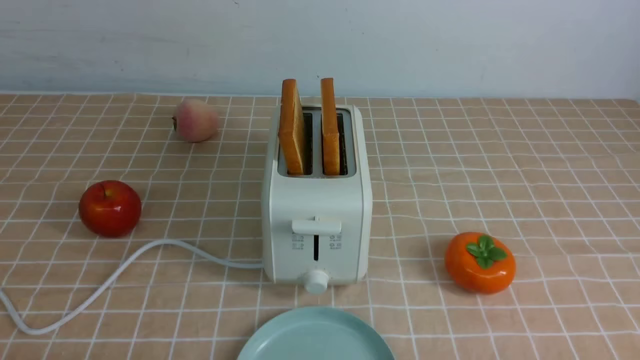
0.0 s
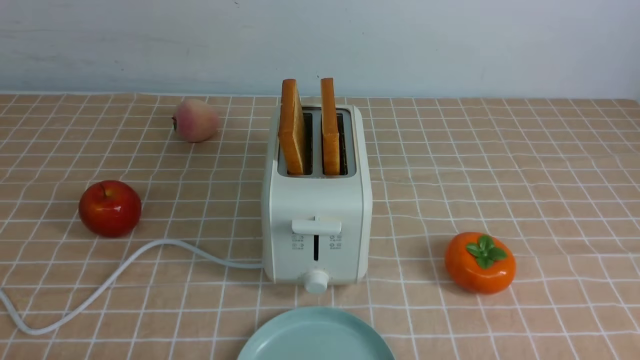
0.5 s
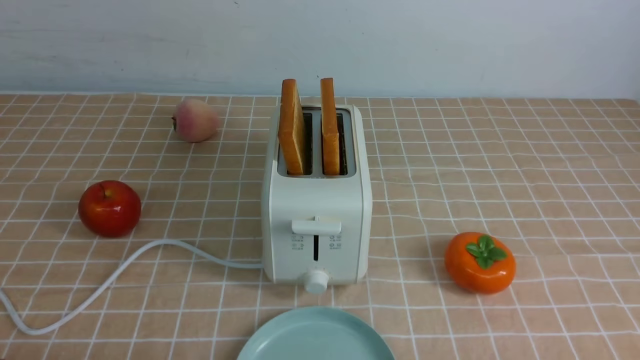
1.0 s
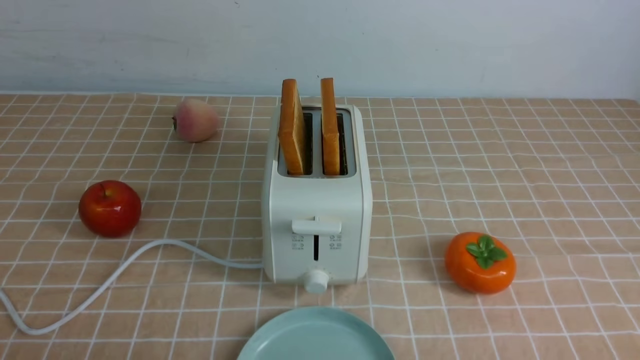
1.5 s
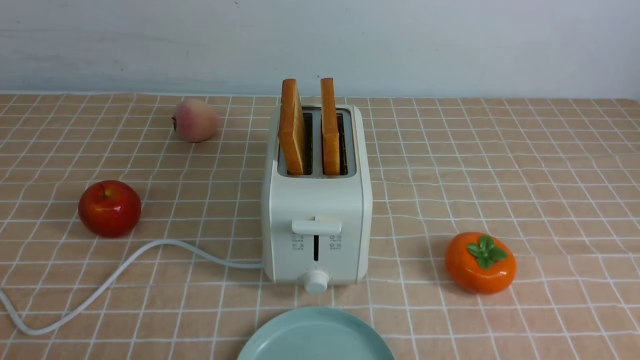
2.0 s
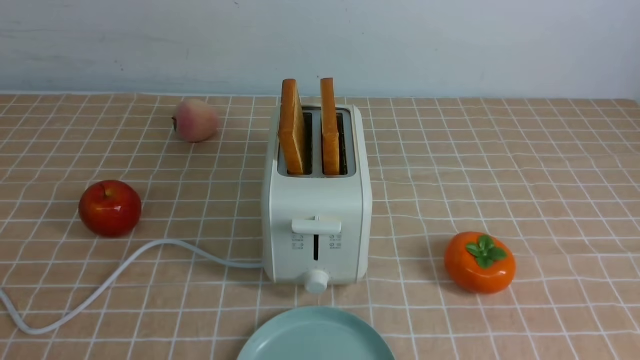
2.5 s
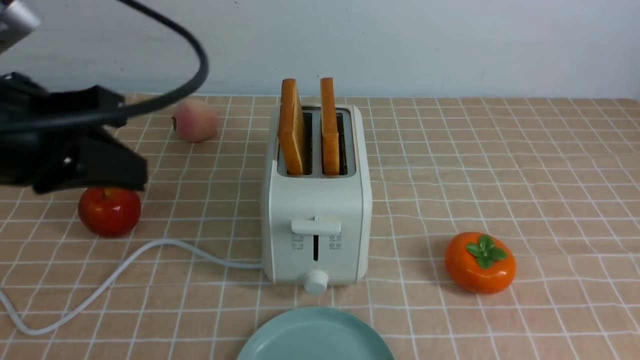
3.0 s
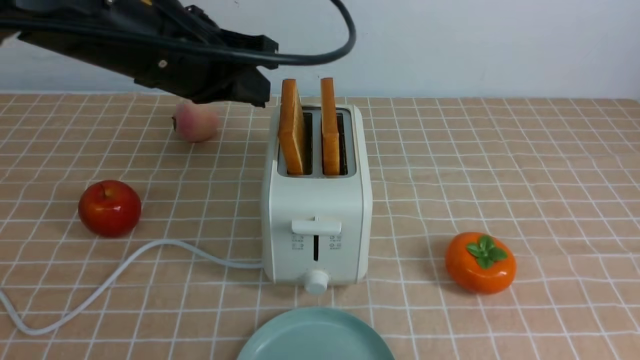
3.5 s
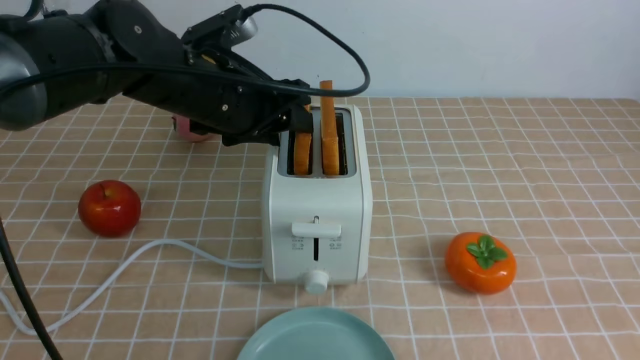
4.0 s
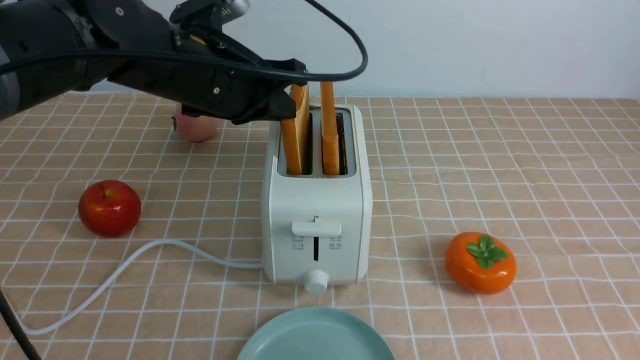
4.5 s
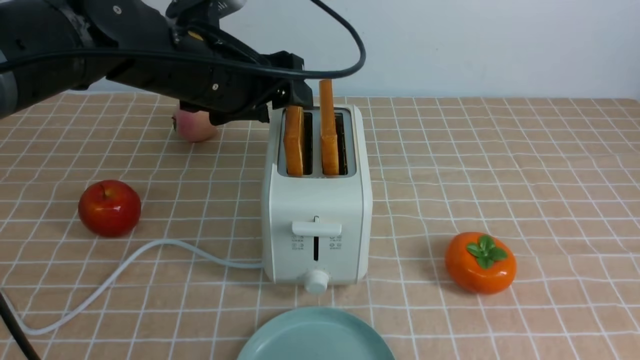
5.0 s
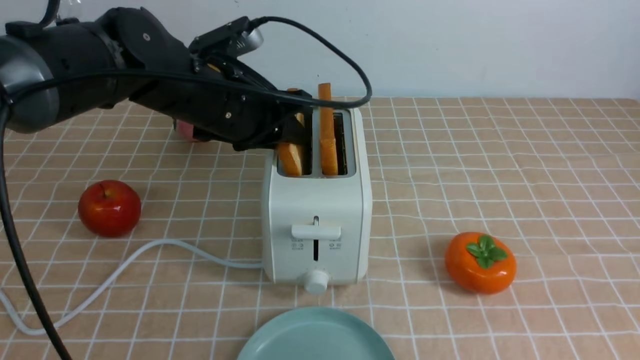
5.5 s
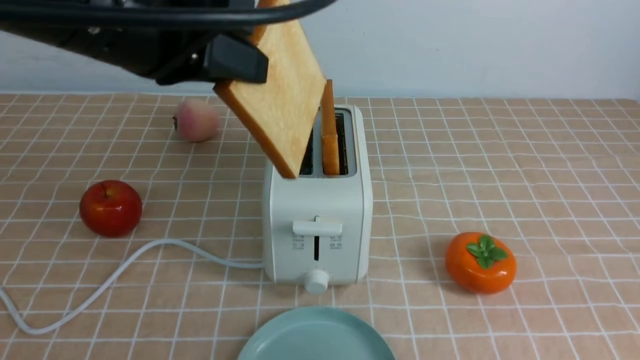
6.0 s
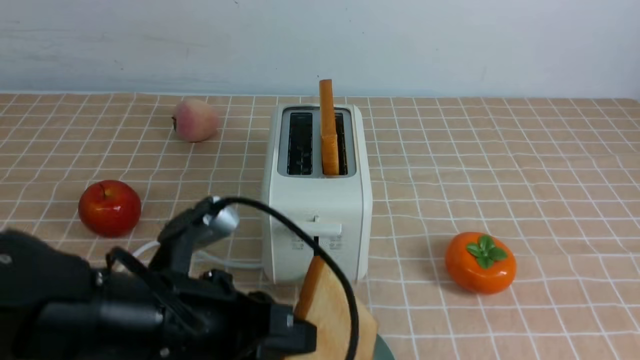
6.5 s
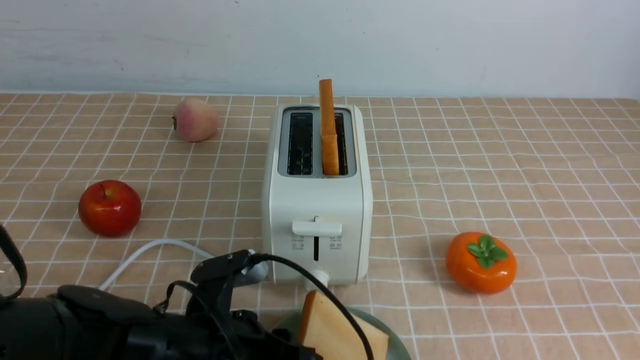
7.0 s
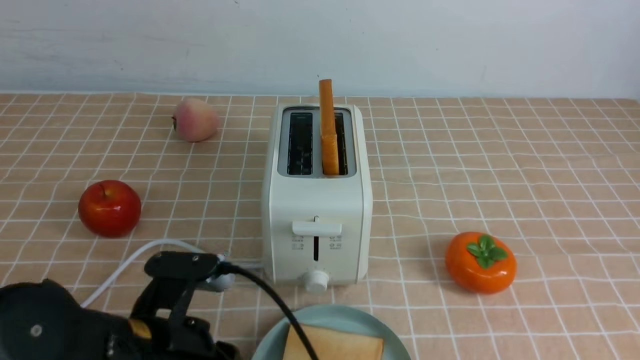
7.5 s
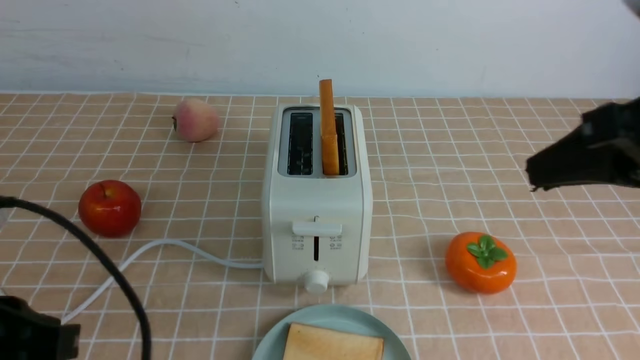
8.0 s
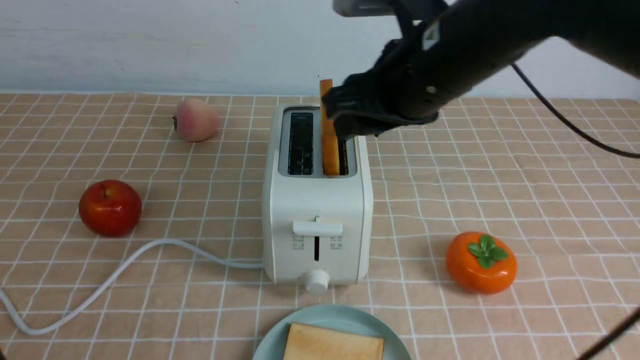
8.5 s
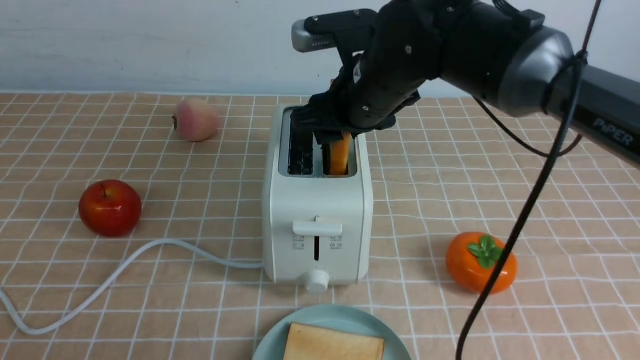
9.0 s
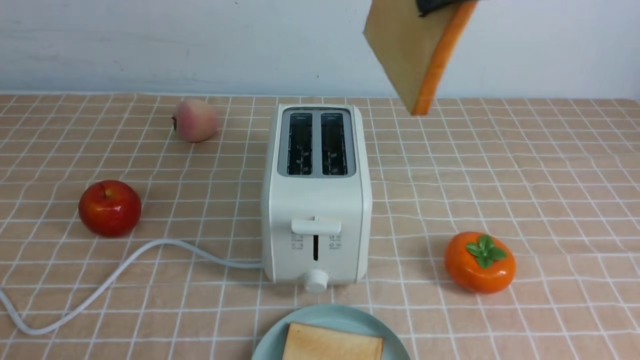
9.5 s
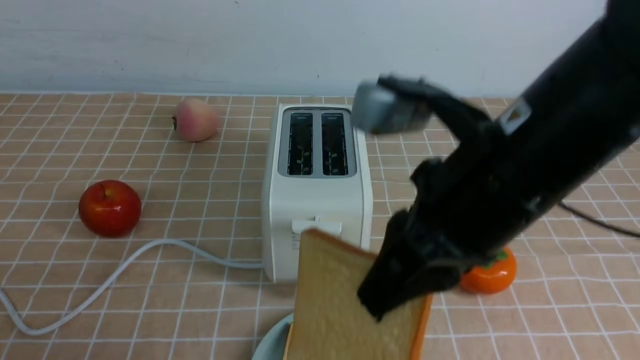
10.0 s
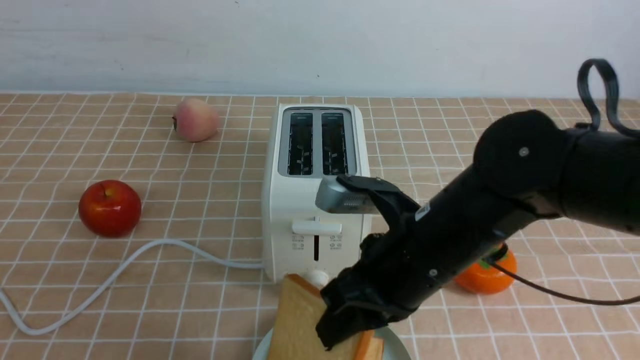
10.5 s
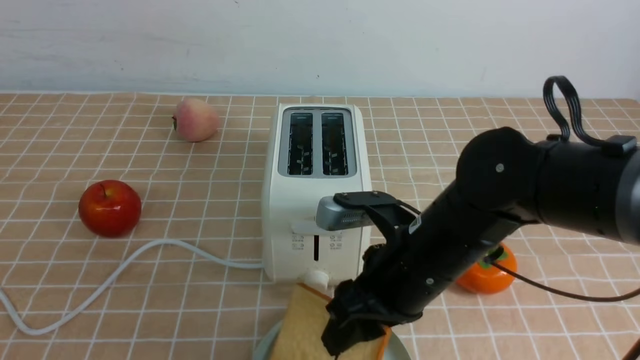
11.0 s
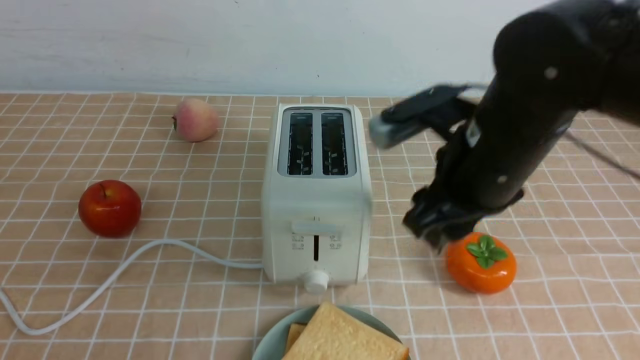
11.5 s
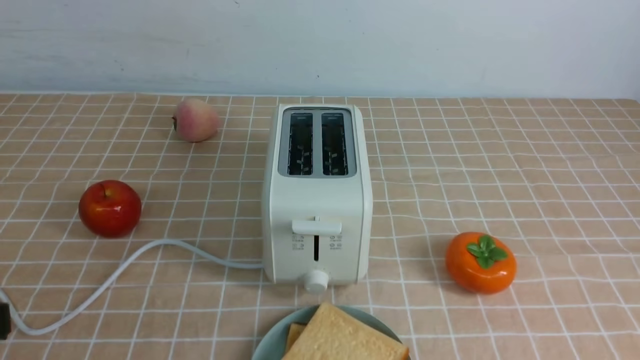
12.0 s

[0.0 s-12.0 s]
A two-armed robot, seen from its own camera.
Task of the whole recording: take toasted bread from bread machine on light coffee tablecloth place on plate.
Step, 0.0 to 5.5 s: use the left arm to take out a slice of bread.
Step, 6.0 to 7.0 s: use the left arm to put a slice of bread into the empty plate.
Step, 7.5 to 9.0 s: use the right arm to take out a slice of bread.
Step, 9.5 to 11.0 s: use the right arm to put a slice of bread into the plate.
2.0 to 4.0 s: The right gripper moves upward, roughly 15 cm, and closes its fingers; the left gripper is displaced forward and to the right by approximately 35 cm, and closes, then opens again.
4.0 to 6.0 s: The left gripper goes roughly 10 cm backward and upward, and closes up.
6.0 to 8.0 s: The left gripper moves backward, downward and to the left, roughly 20 cm. The right gripper is displaced forward and upward by roughly 10 cm.
8.0 to 10.0 s: The left gripper shifts approximately 10 cm backward. Meanwhile the right gripper shifts approximately 15 cm to the left, and opens and closes again.
10.0 to 12.0 s: The right gripper goes roughly 20 cm to the right, backward and upward, and opens, then closes again.

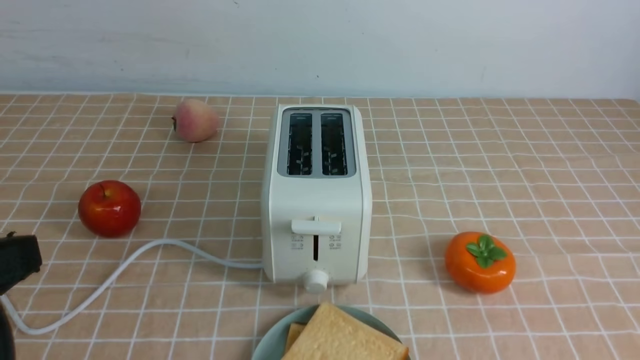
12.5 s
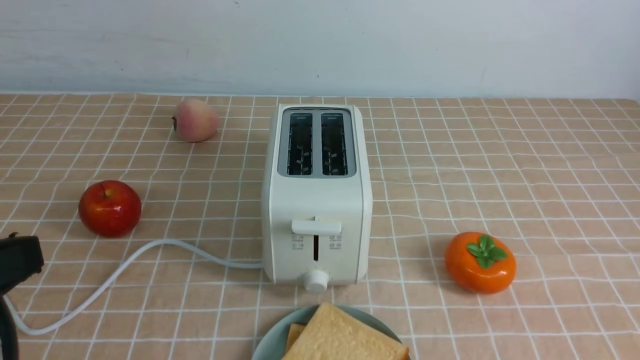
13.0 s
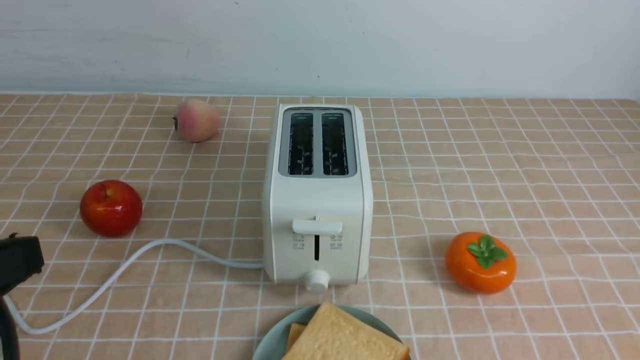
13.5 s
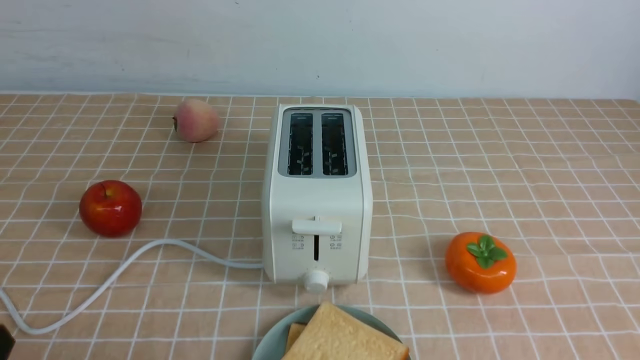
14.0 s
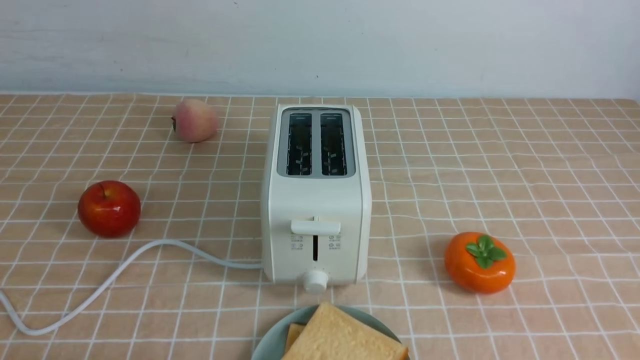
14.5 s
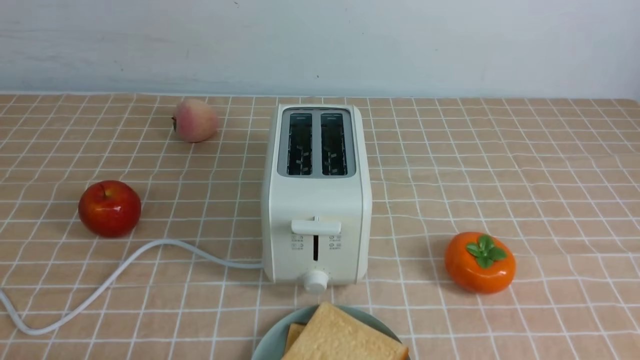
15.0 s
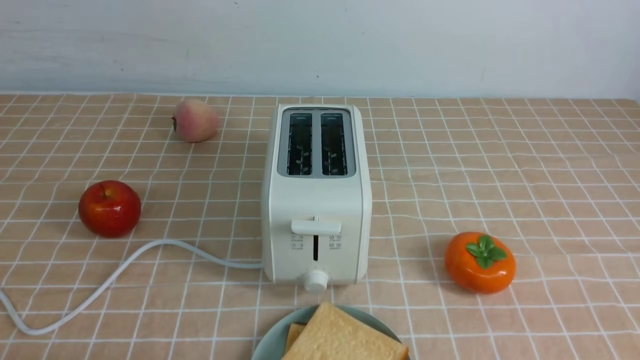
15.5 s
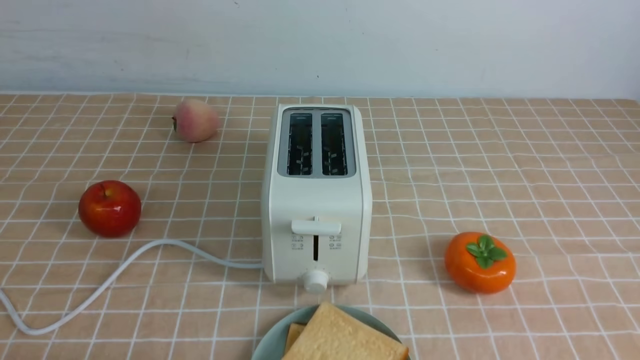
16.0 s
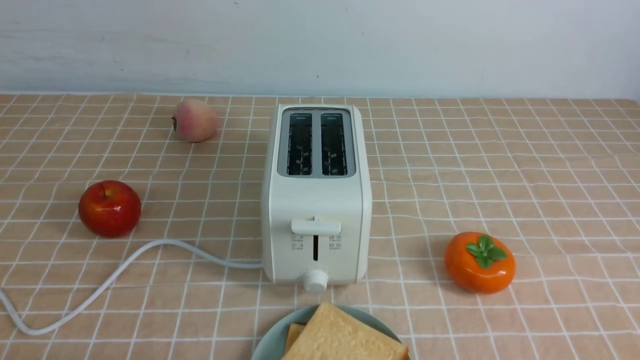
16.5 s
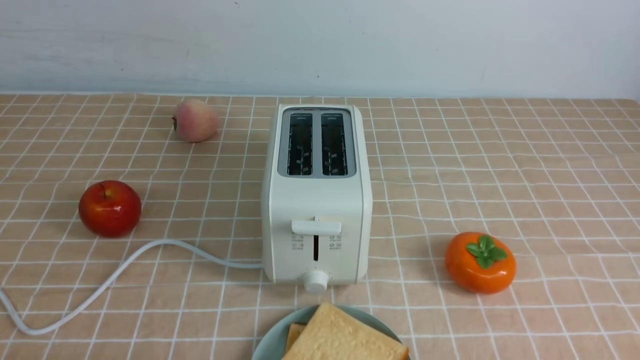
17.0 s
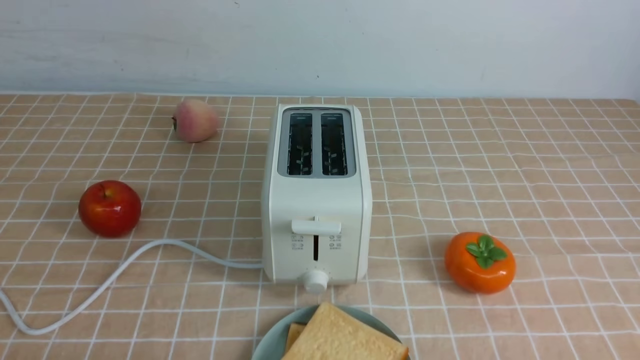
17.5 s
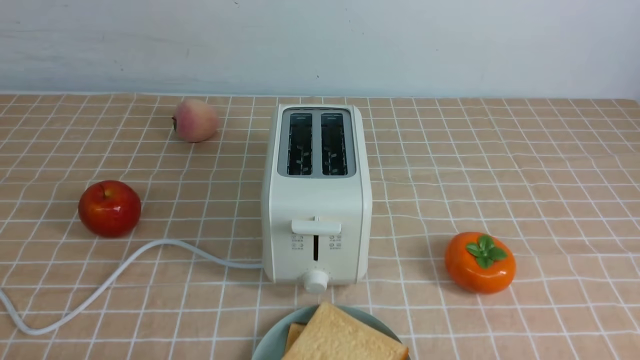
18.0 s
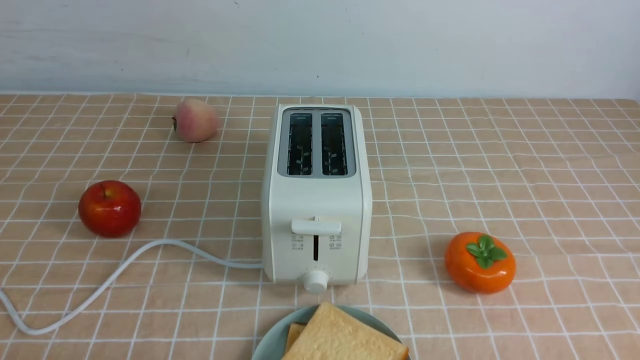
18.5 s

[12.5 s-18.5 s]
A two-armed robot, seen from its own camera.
Task of the whole recording: take toasted bread from bread machine on light coffee tablecloth place on plate.
12.5 to 14.5 s: The left gripper shifts some 20 cm downward.

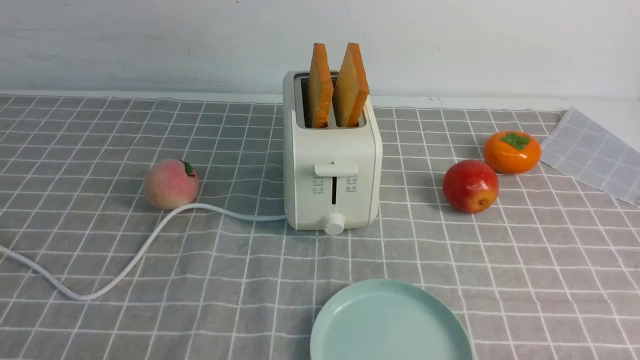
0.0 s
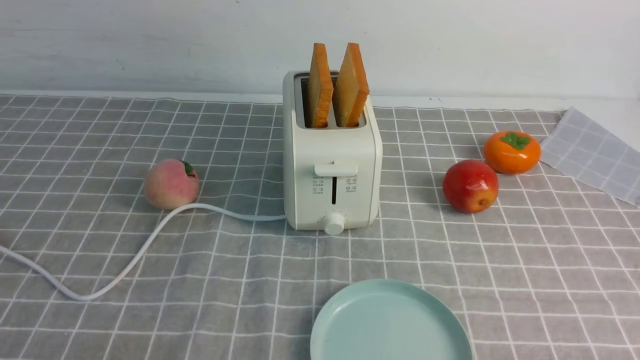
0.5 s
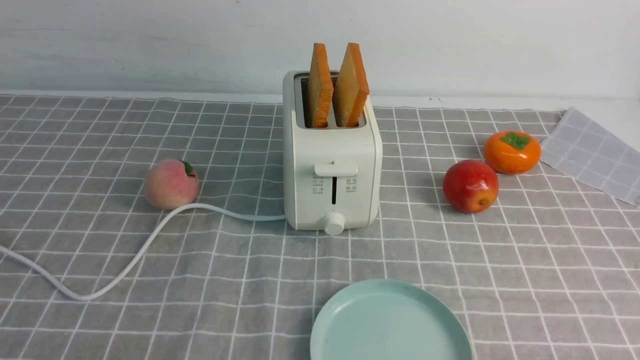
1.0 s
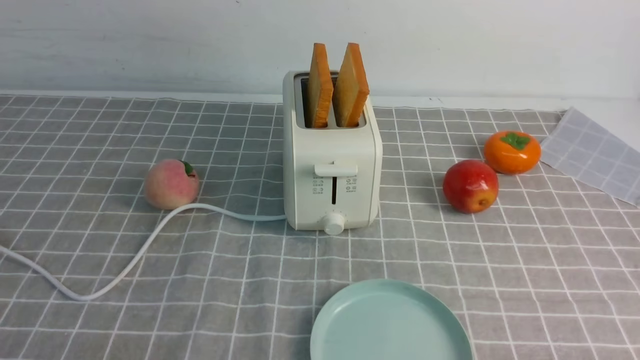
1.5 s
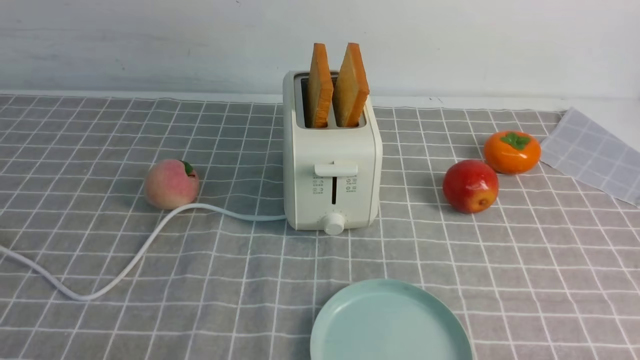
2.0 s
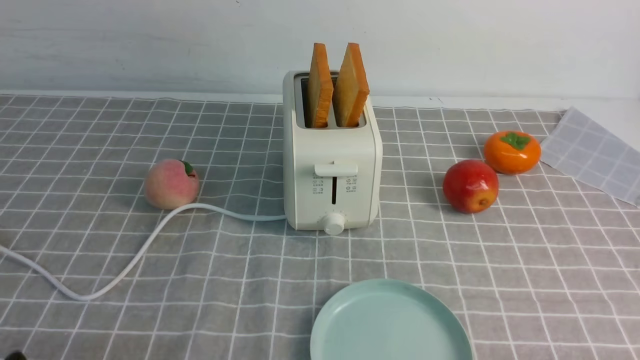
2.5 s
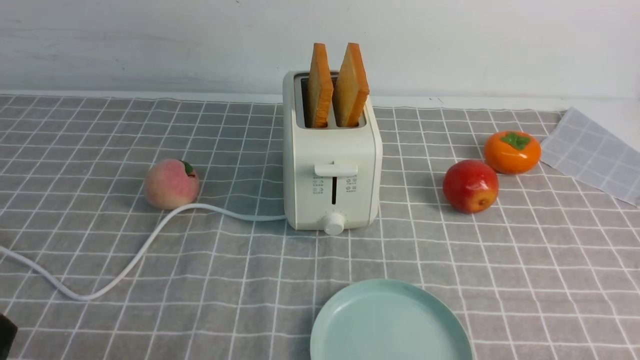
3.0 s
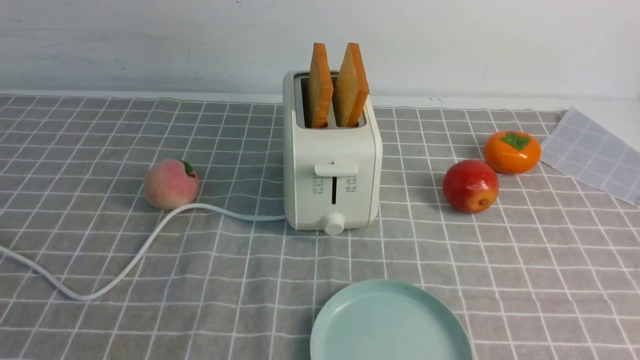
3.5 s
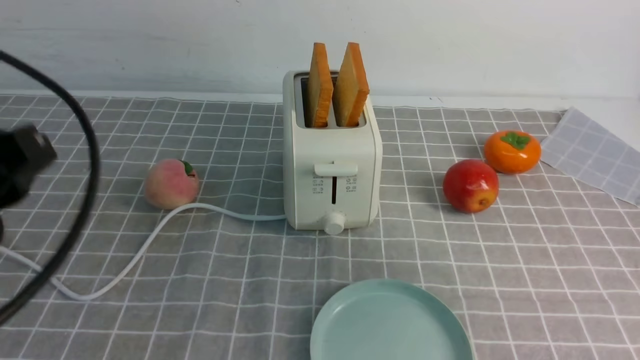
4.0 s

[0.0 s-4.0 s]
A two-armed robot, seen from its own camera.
Task of the whole recording: take toasted bread from bread machine on grey coffee table place on plate.
0.0 to 2.0 s: Both grippers stay about where they are.
2.0 to 4.0 s: Both grippers move upward and forward, roughly 25 cm.
